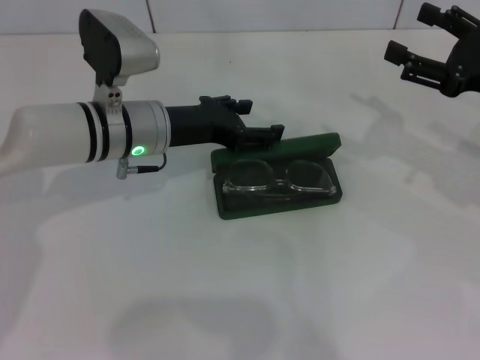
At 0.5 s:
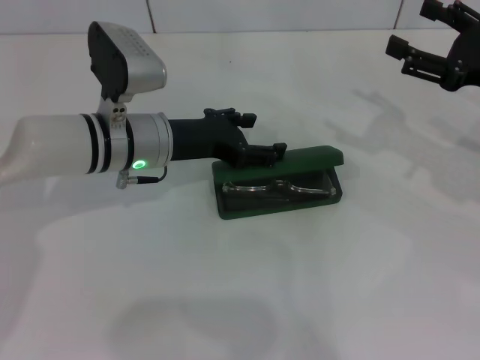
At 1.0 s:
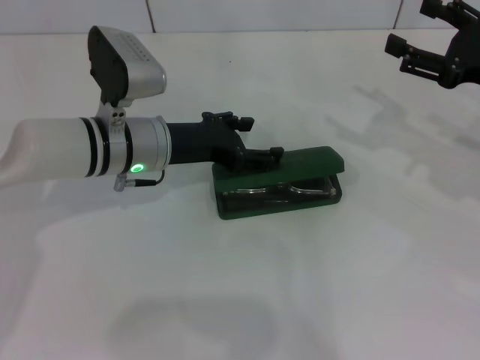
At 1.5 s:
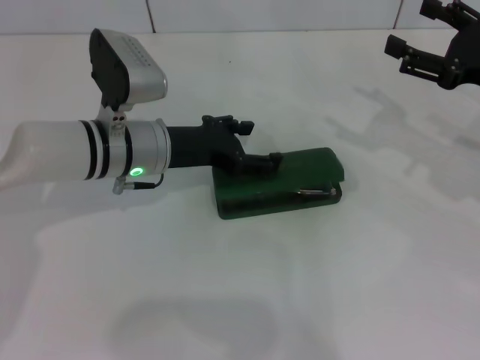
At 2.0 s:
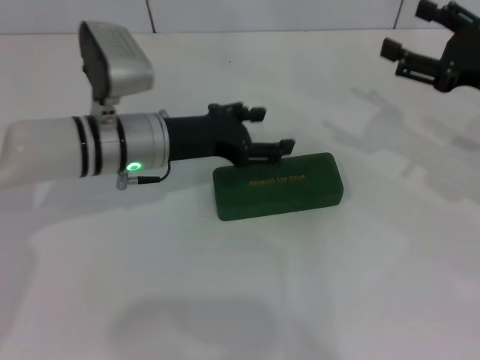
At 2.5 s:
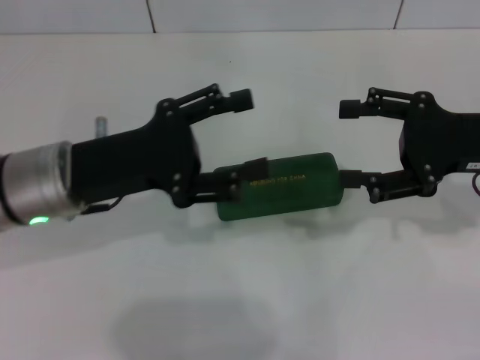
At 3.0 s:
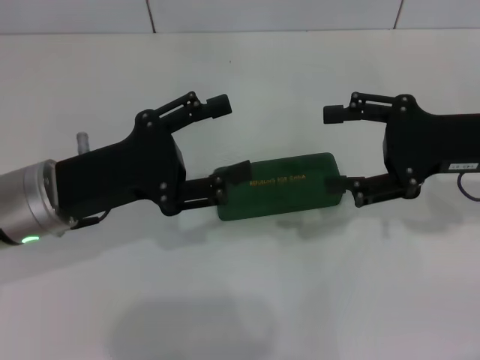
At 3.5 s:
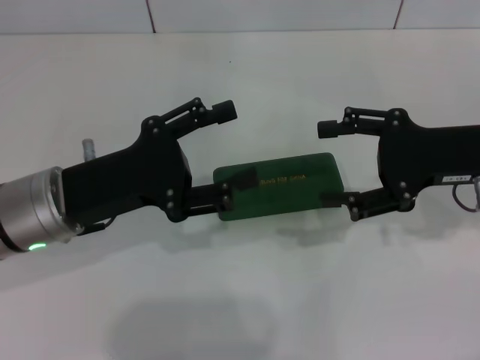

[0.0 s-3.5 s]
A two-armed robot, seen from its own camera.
0.0 to 2.0 s: The grippers make only small movements.
2.0 to 3.5 s: The left gripper is displaced backward and to the left by some 10 cm. Meanwhile the right gripper changes place by roughly 5 cm.

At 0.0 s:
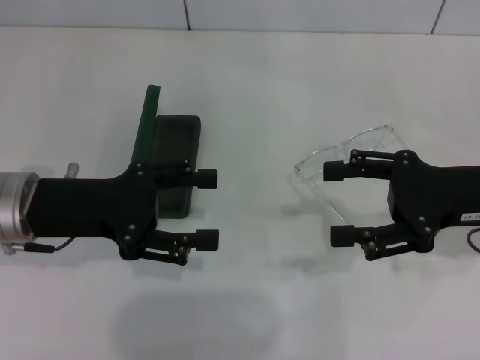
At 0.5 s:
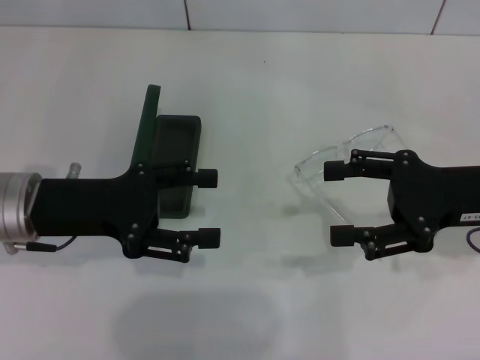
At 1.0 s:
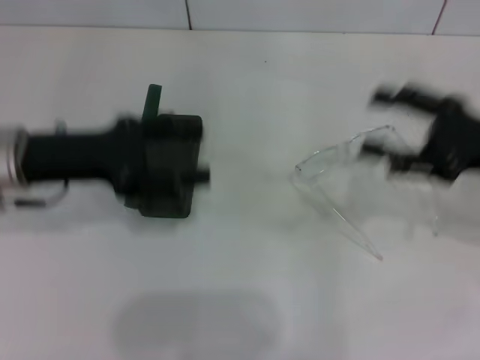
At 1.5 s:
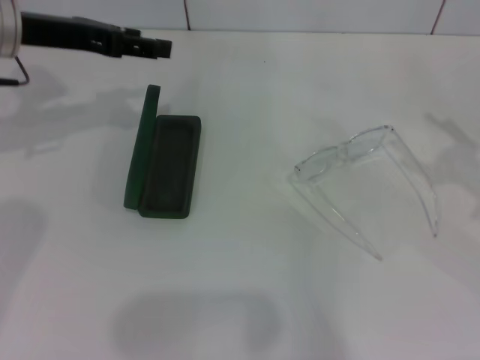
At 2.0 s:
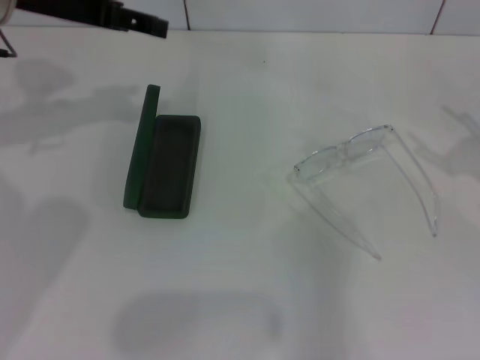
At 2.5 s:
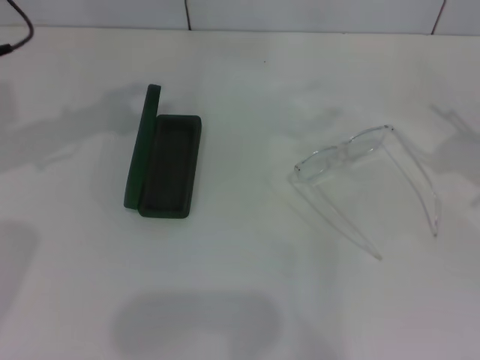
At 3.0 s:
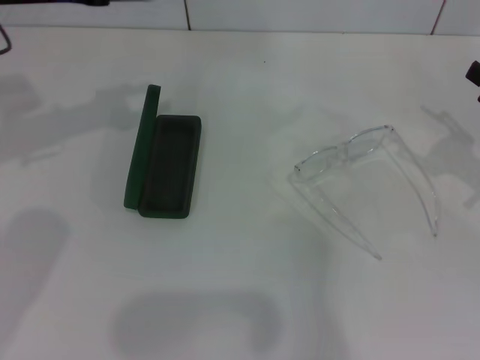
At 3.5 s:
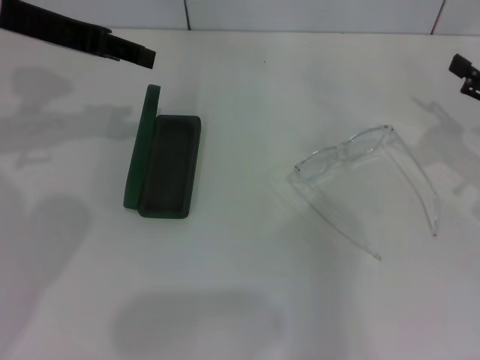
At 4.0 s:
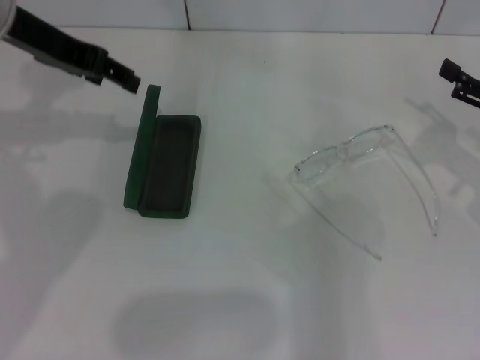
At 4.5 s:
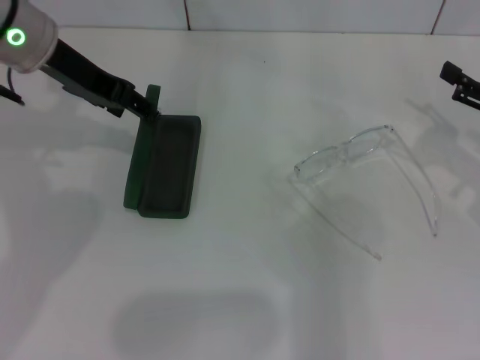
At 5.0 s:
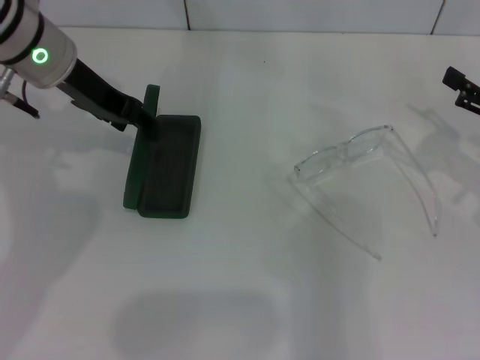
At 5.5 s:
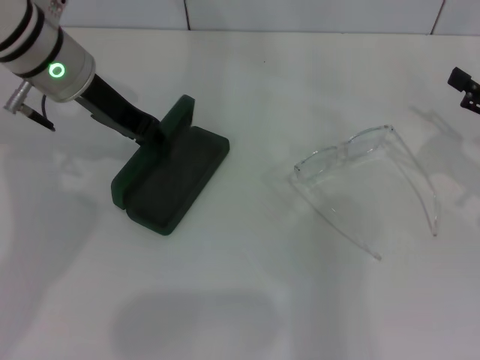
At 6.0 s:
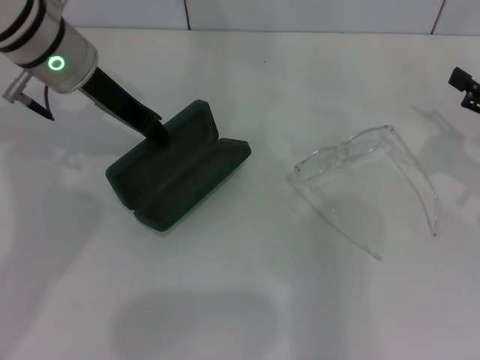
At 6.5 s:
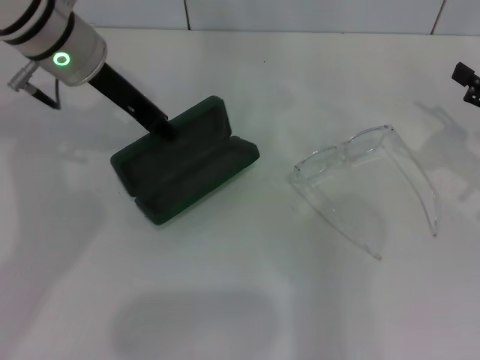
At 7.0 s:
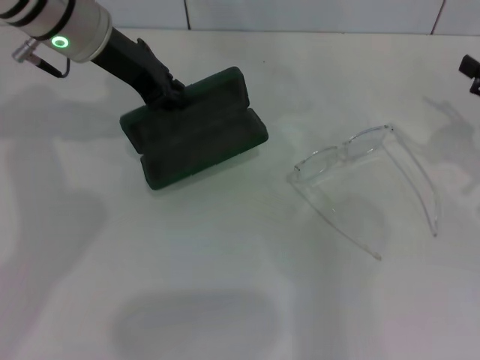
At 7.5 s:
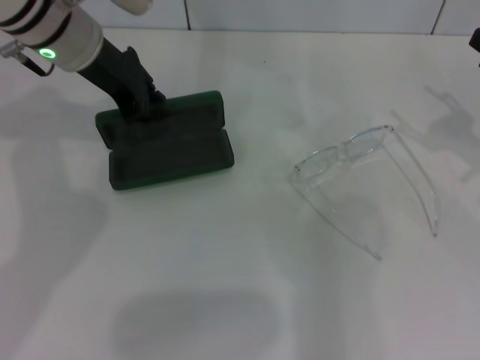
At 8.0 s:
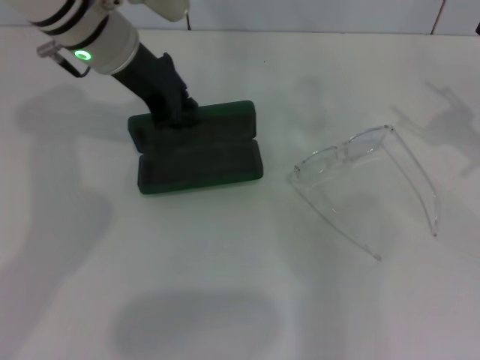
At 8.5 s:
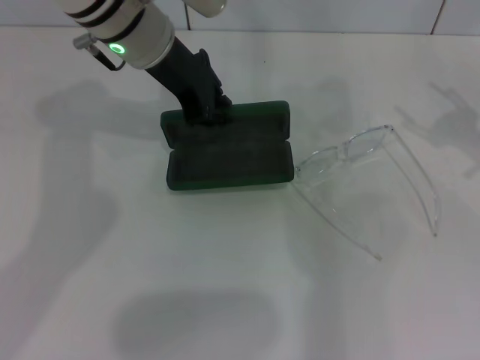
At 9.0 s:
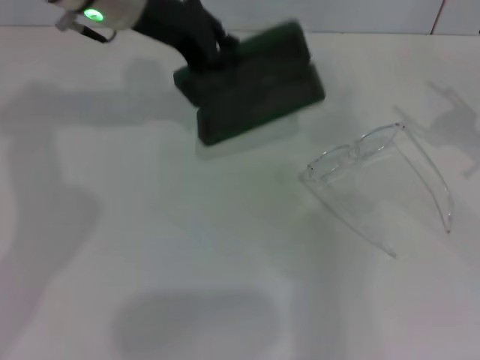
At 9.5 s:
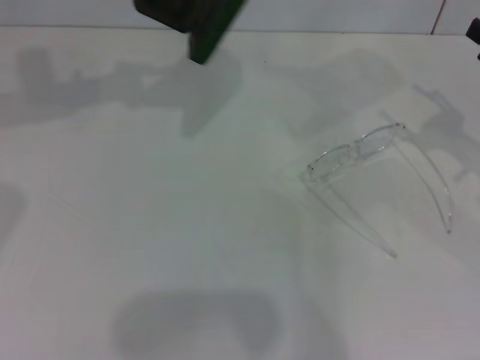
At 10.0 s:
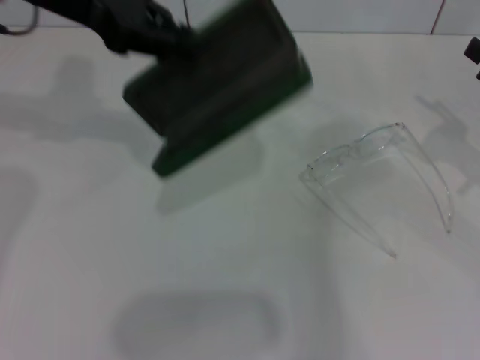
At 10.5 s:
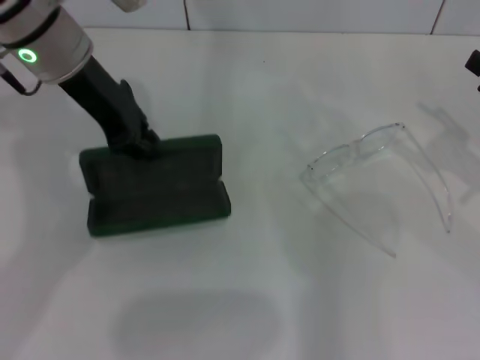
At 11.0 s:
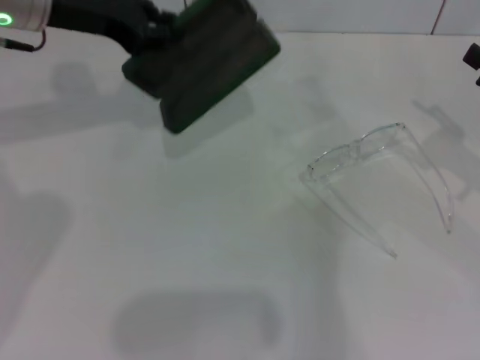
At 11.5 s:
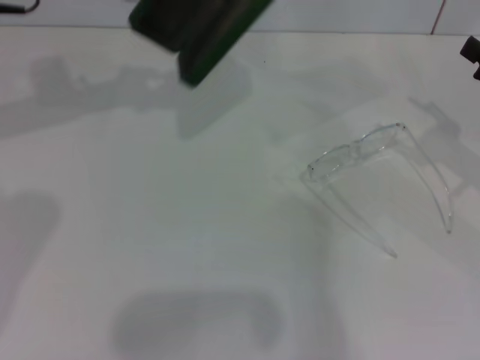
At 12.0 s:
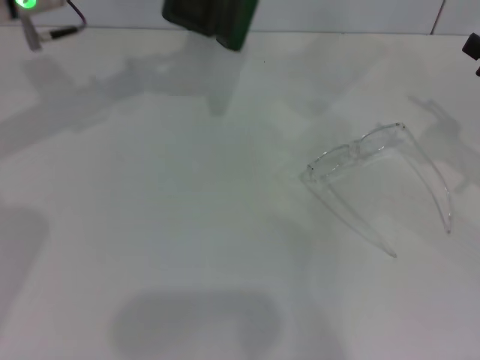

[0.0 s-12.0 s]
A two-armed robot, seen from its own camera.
Step, 0.0 to 5.0 s: Grab the glasses case with your left hand.
0.0 to 2.0 s: The left gripper travels upward and forward by approximately 20 cm. The right gripper shifts about 10 cm to the right.
4.0 to 6.0 s: The left gripper travels downward and to the right by approximately 10 cm, and closes.
8.0 to 10.0 s: The left gripper shifts roughly 10 cm upward and to the left.
10.0 to 12.0 s: The left gripper goes up and down, about 5 cm each way, reversing 2 times.

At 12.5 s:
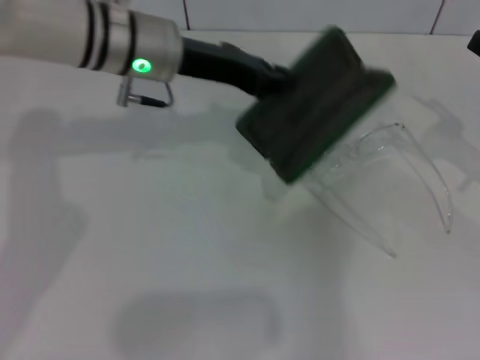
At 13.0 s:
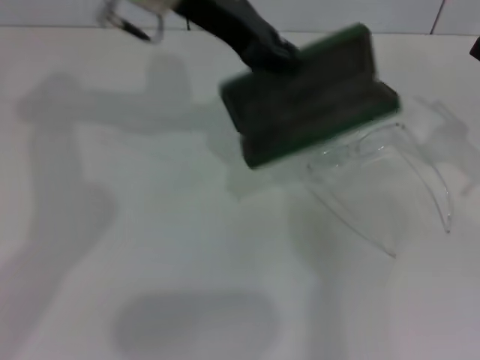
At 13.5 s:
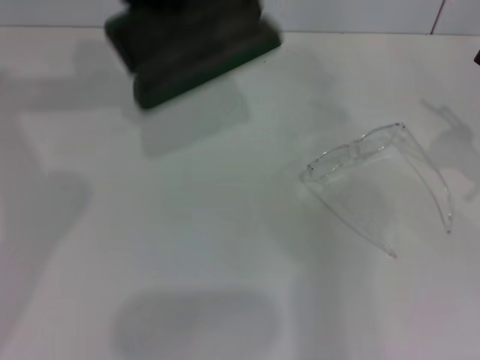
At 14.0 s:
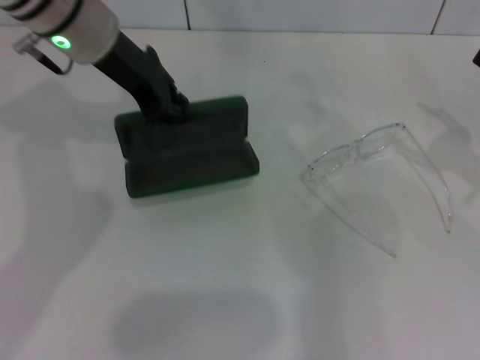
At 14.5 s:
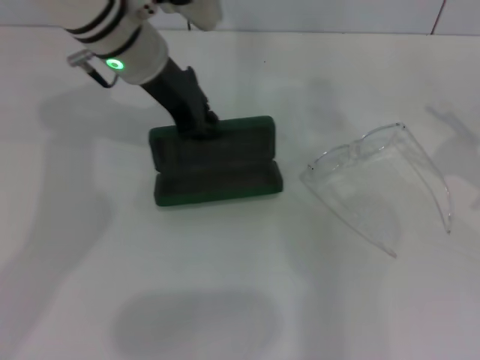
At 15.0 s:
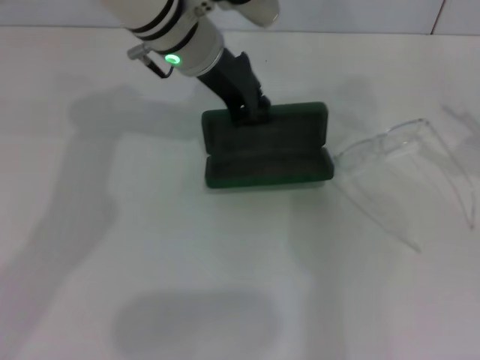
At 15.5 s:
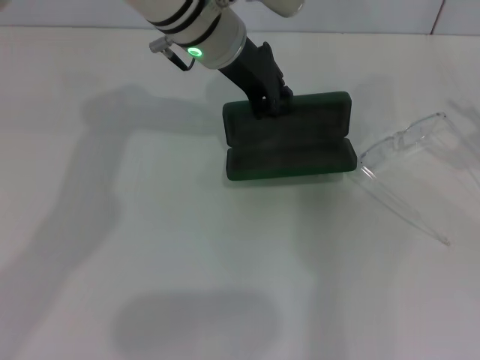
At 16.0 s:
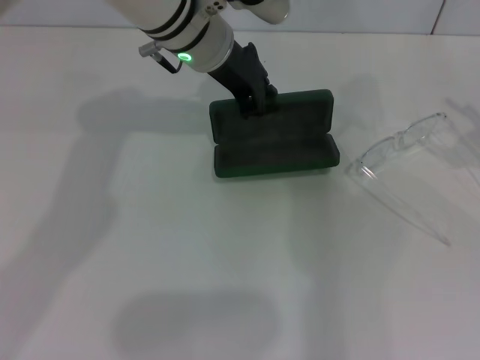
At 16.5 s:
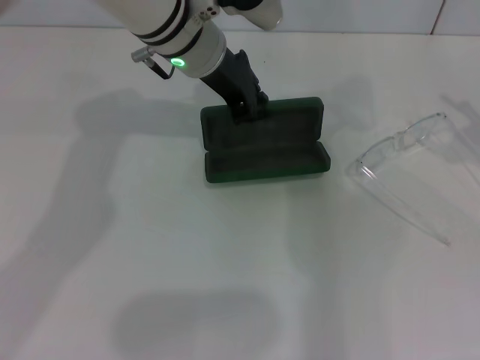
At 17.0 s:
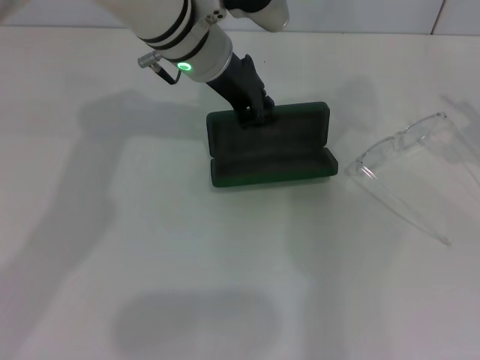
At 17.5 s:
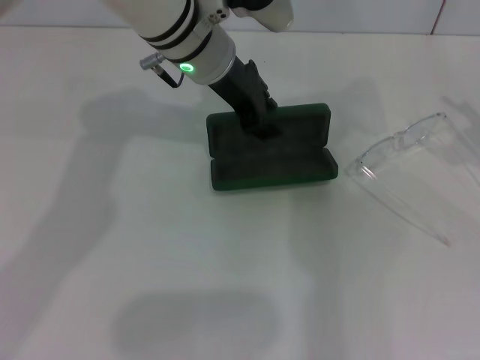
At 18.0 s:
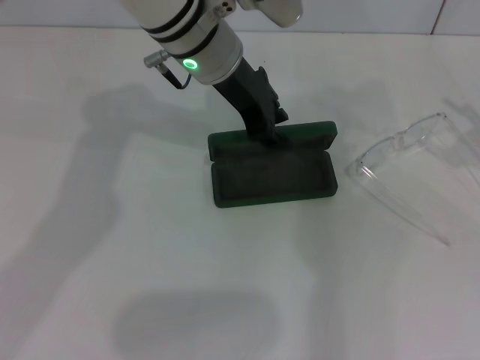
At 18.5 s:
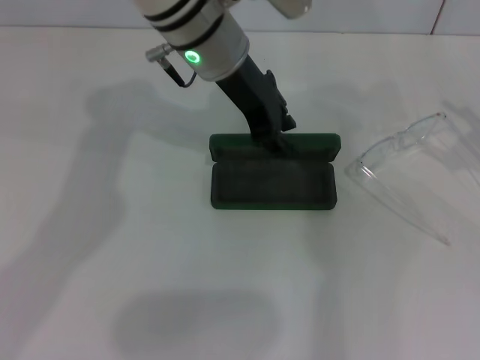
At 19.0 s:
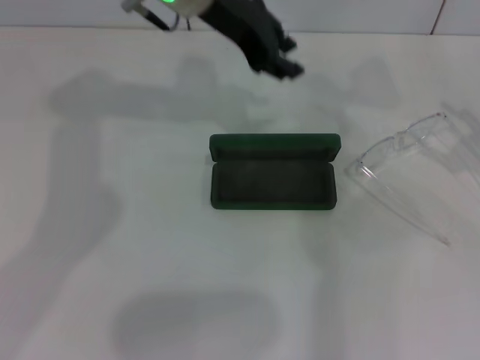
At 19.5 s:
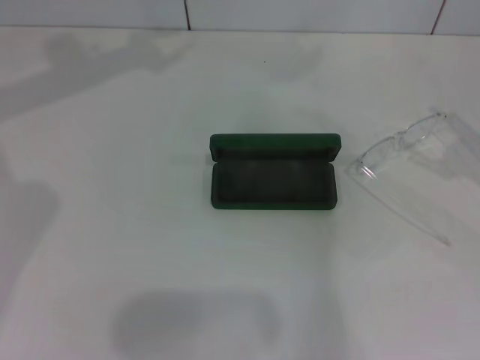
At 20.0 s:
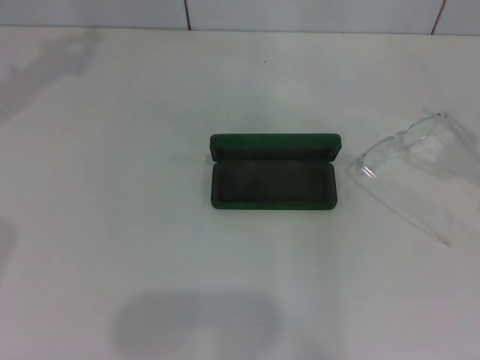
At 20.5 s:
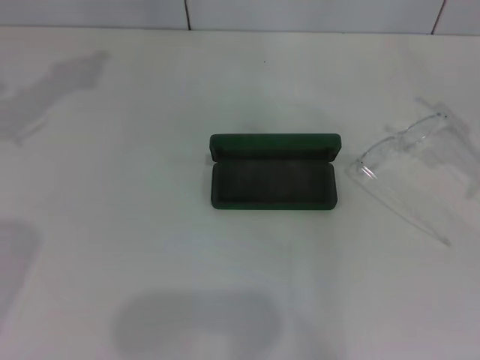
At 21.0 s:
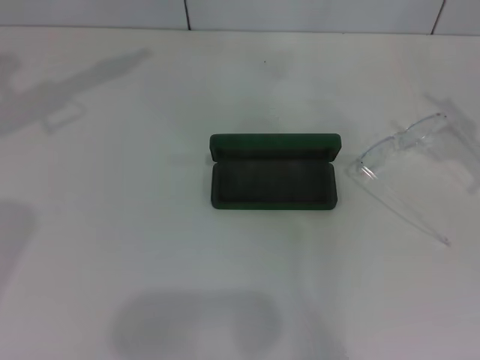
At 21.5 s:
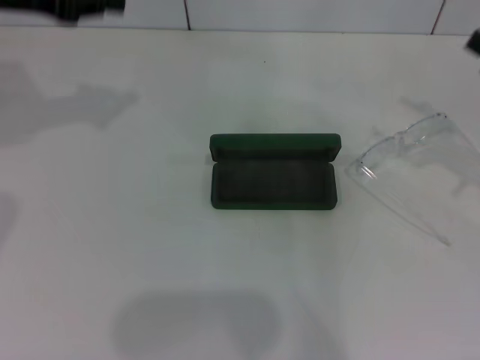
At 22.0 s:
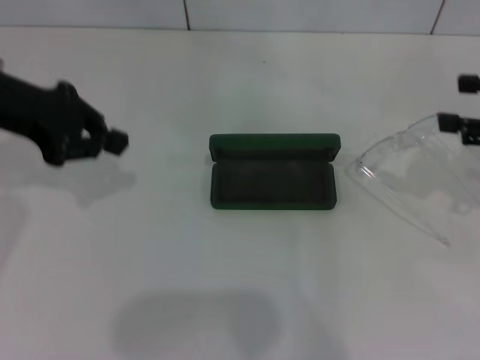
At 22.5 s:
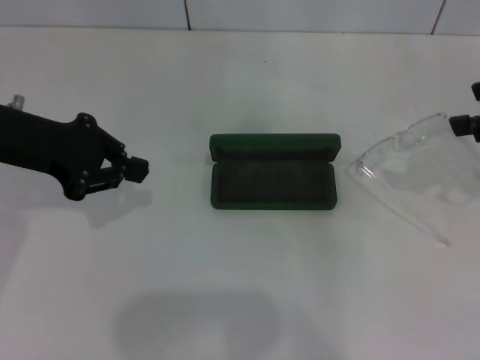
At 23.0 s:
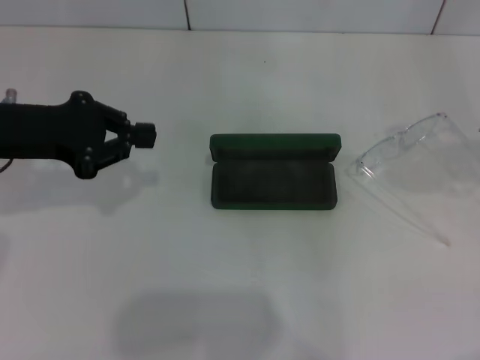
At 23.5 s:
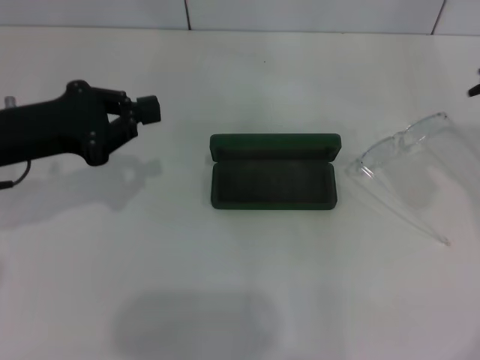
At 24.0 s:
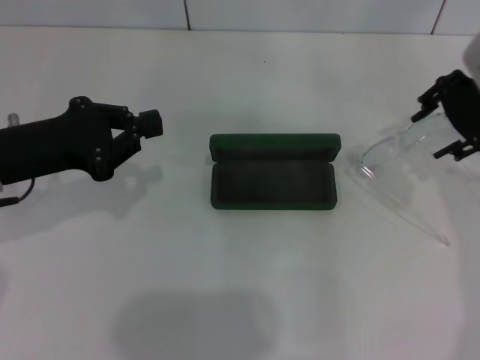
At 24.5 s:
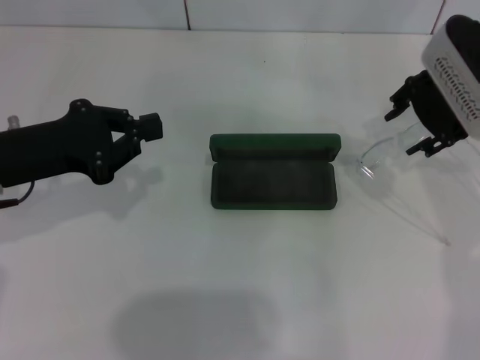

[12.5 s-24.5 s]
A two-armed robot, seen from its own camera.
Step, 12.5 to 17.5 s: Place the glasses case in the center of the table with your left hand.
12.5 to 14.5 s: The left gripper moves roughly 10 cm upward and comes back.
14.5 to 16.5 s: The left gripper shifts by about 5 cm.
16.5 to 18.5 s: The grippers stay close to where they were, moving slightly.
18.5 to 20.5 s: The left gripper heads to the left, covering about 25 cm, and closes its fingers.
20.5 to 22.5 s: The left gripper heads backward, covering about 5 cm.
22.5 to 24.5 s: The left gripper changes place by roughly 5 cm. The right gripper travels to the left, forward and downward by roughly 15 cm.
